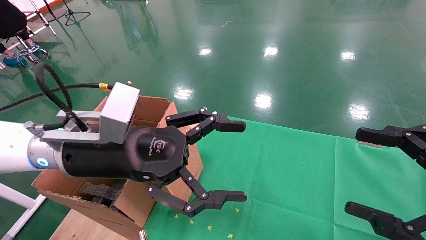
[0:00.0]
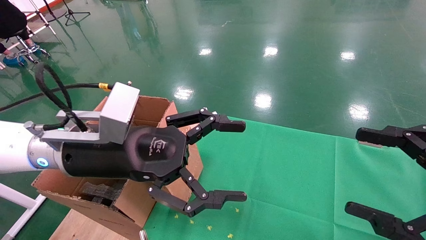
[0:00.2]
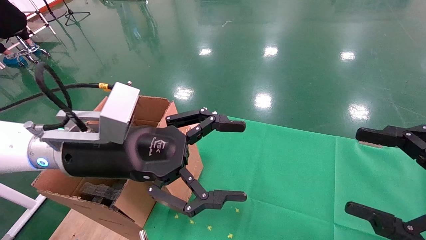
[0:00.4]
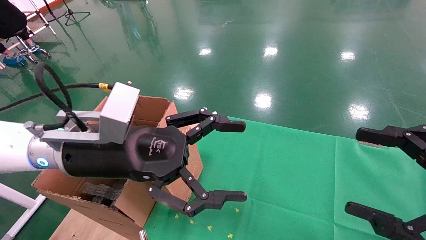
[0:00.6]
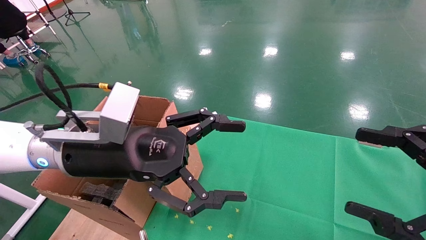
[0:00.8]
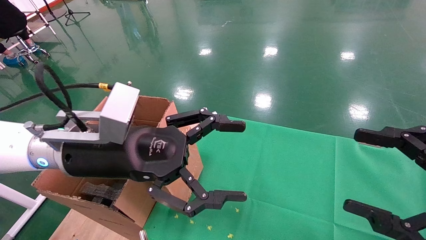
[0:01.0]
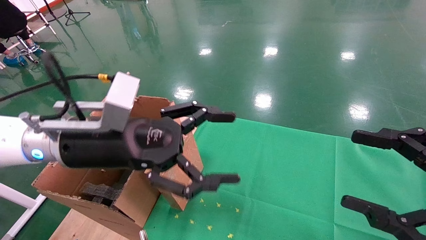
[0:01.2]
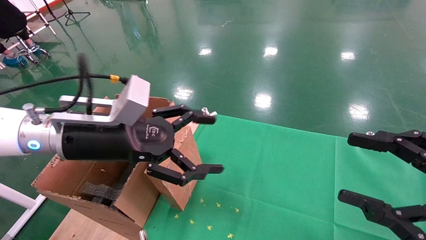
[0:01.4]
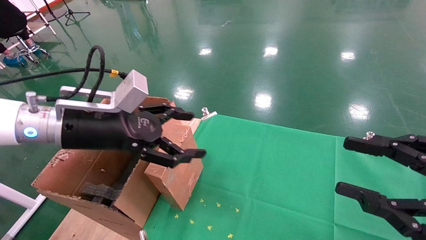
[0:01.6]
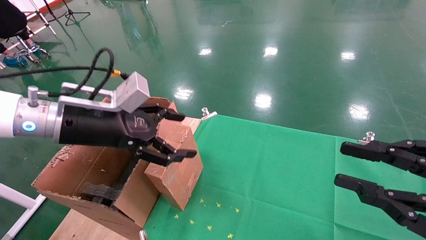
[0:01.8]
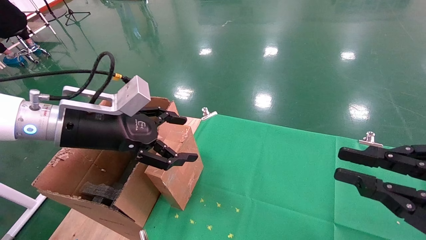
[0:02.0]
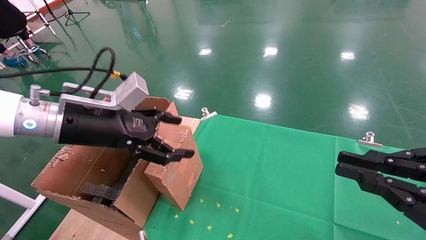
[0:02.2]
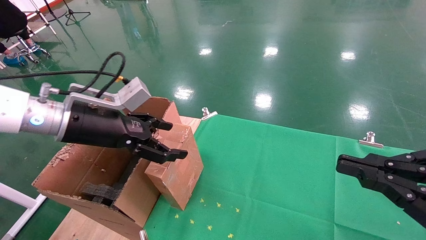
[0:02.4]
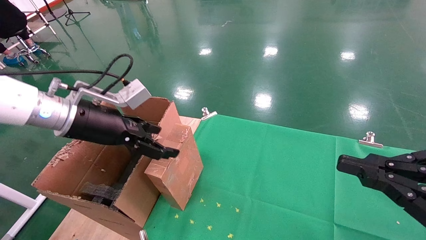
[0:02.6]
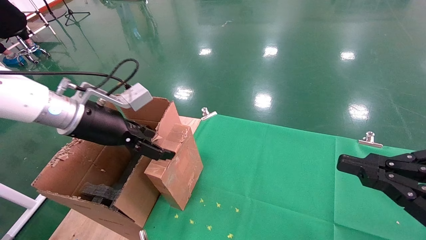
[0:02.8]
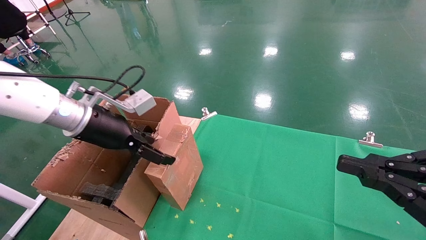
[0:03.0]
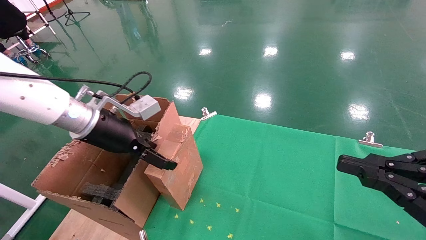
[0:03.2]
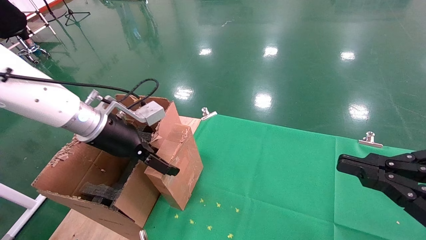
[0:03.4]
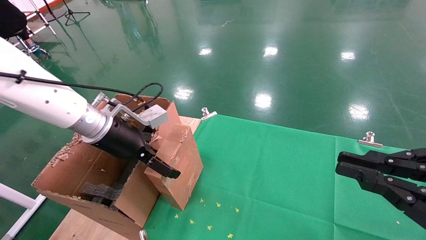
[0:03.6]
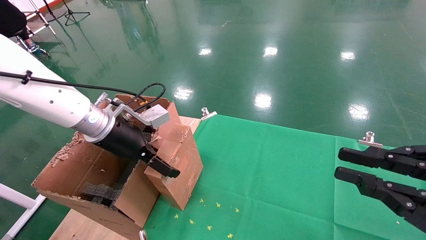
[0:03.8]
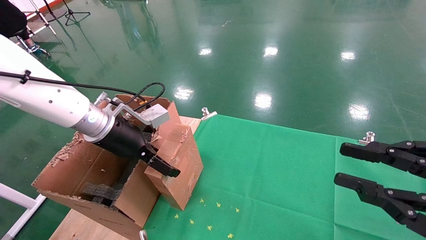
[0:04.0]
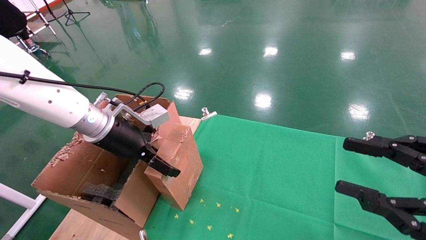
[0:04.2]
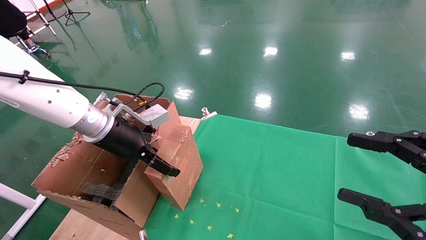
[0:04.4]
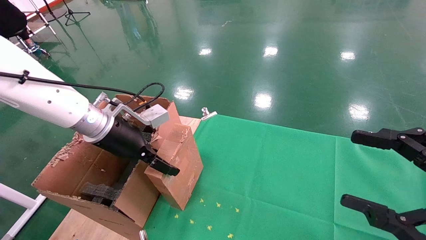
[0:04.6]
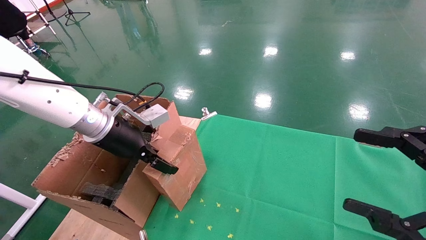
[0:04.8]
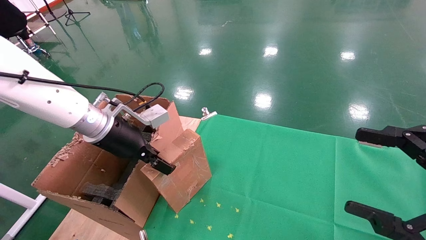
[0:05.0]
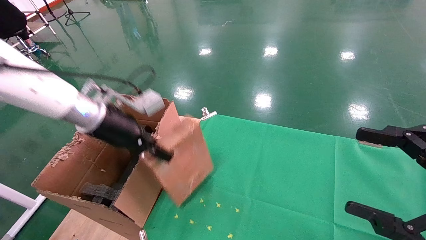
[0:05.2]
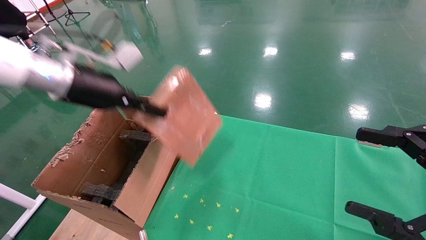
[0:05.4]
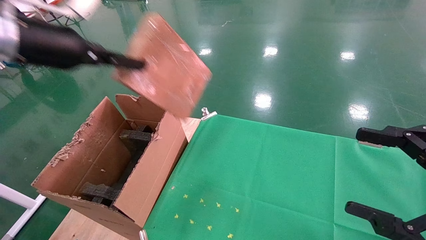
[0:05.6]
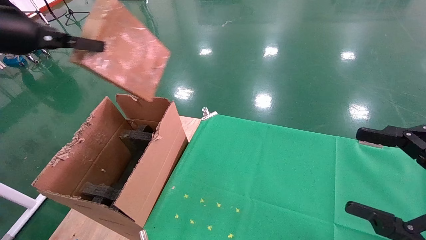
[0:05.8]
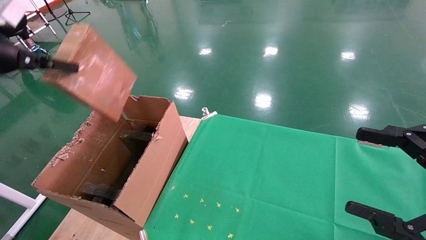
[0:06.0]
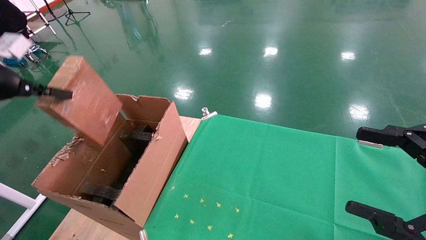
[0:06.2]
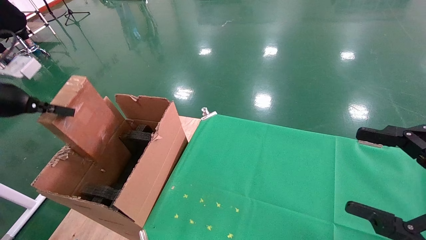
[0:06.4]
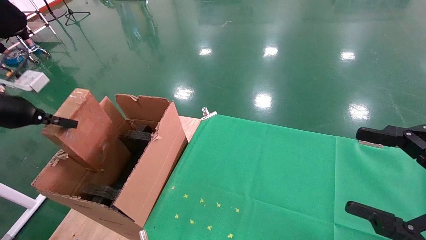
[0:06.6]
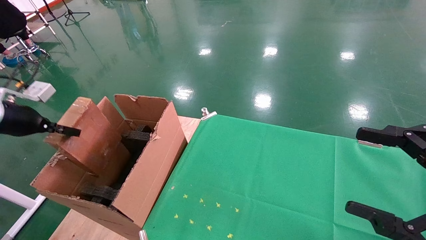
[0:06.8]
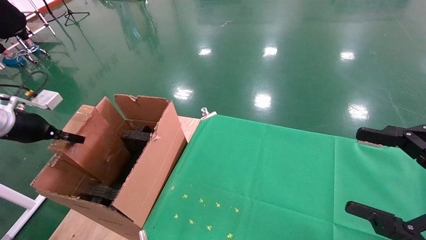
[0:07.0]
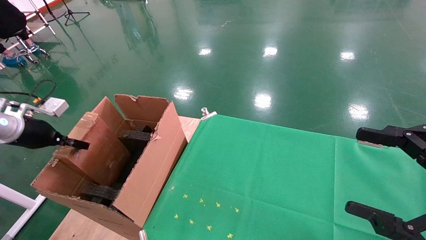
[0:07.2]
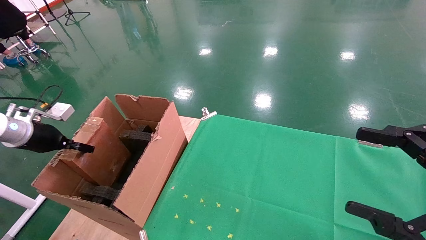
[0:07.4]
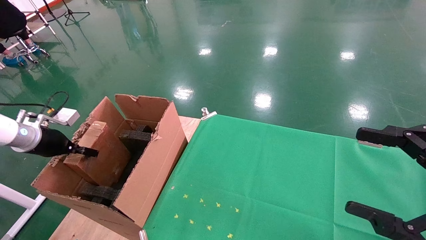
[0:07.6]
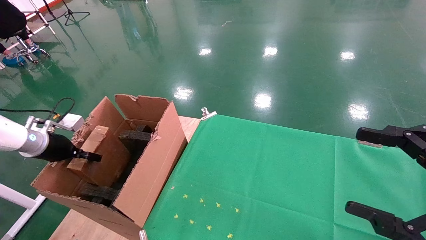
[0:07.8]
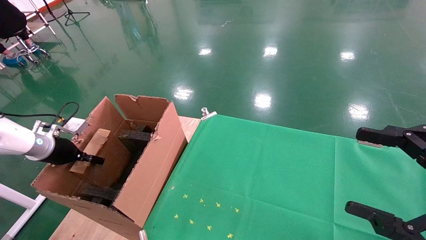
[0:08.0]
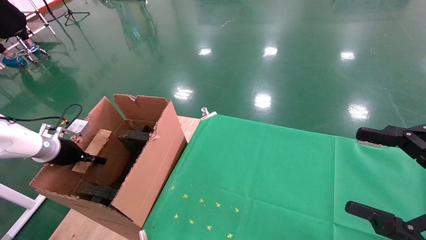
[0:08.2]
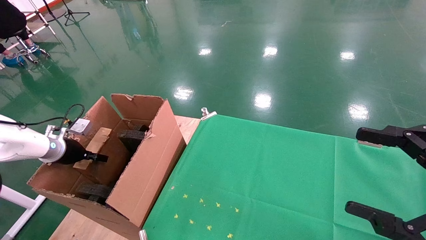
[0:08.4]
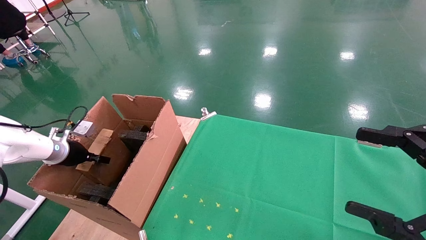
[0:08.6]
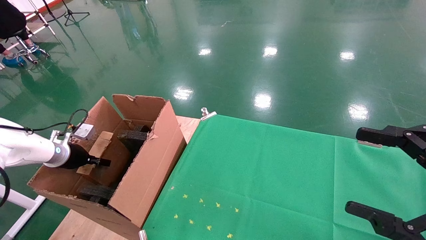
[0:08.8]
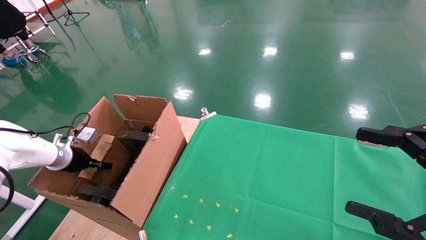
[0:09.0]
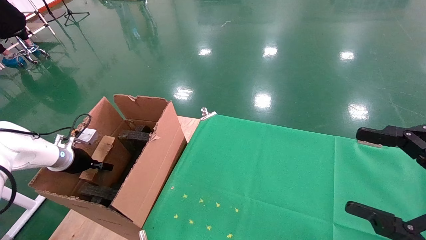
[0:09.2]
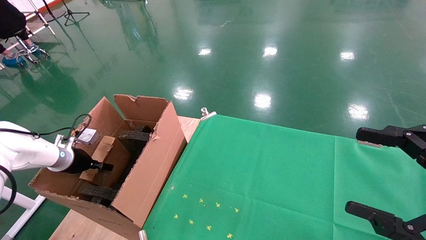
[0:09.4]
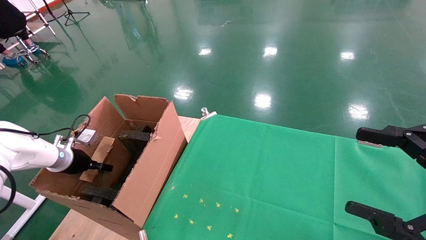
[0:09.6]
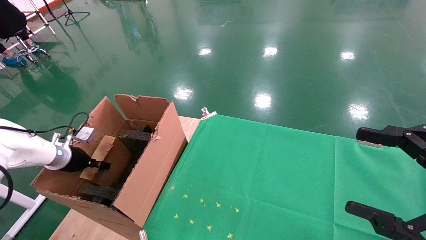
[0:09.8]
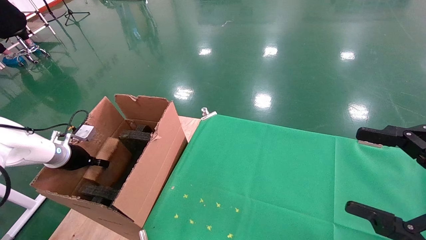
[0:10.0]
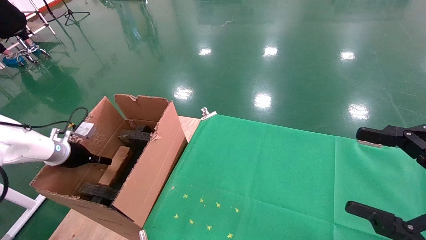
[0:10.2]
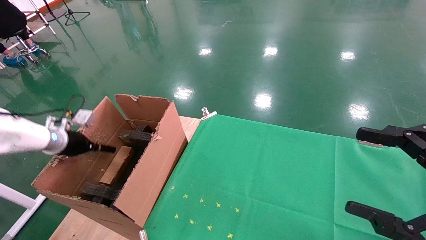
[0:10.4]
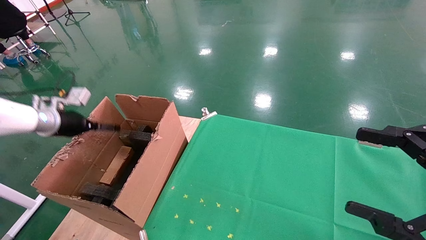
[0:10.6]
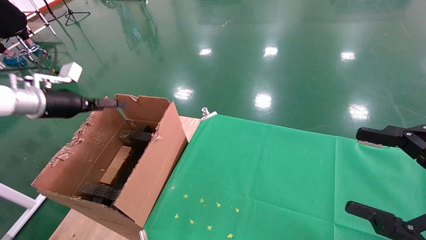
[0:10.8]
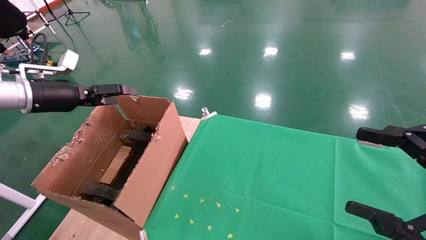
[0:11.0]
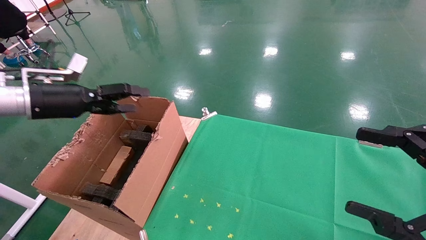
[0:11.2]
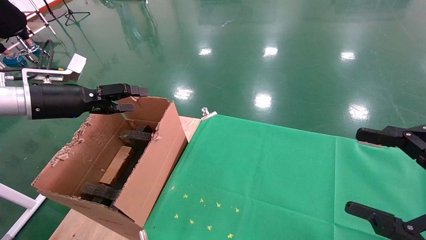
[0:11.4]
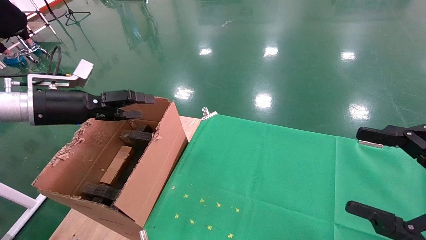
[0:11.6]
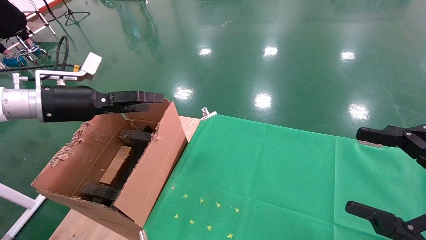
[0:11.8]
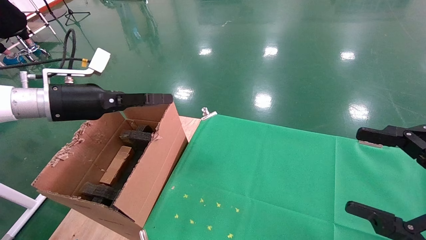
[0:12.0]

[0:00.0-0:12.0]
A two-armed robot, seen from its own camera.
Task of the whole recording: using a robotic arm to pick up a cardboard box and palace it the carton.
Step, 0:01.4 to 0:04.6: Pick up the mouse and the power cord paper box.
Step, 0:04.8 to 0:10.8: Place the mouse and the power cord paper box into the container.
0:00.0 to 0:01.6: The right gripper closes its fingers. Meanwhile the left gripper moves to the left, some 5 cm.
0:01.6 to 0:03.0: The right gripper closes, while the left gripper goes approximately 5 cm forward.
0:03.0 to 0:04.4: The right gripper opens.
0:04.4 to 0:06.0: The left gripper moves to the left, upward and backward, some 25 cm, and closes up. Meanwhile the right gripper opens up.
0:06.0 to 0:07.6: The left gripper is displaced downward and forward by some 20 cm.
0:07.6 to 0:09.0: The left gripper moves downward, some 10 cm.
0:09.0 to 0:10.4: The left gripper heads upward, covering about 5 cm, and opens.
0:10.4 to 0:12.0: The left gripper goes roughly 20 cm to the right, upward and backward.

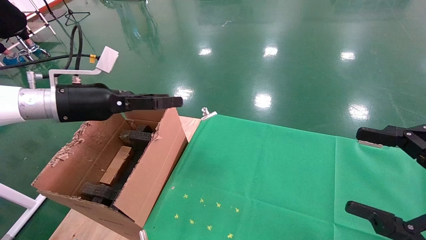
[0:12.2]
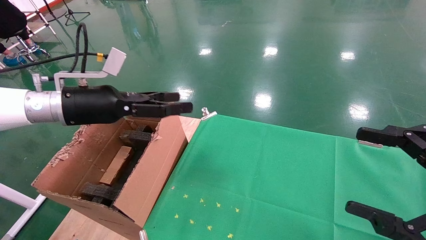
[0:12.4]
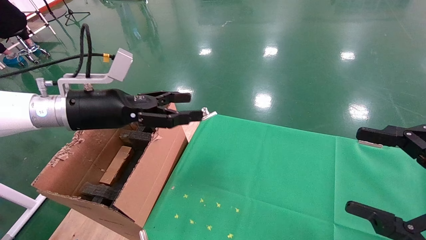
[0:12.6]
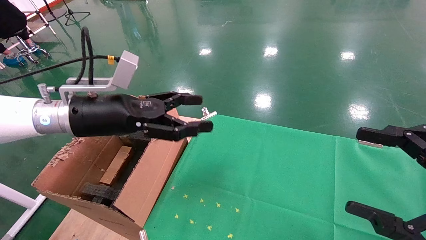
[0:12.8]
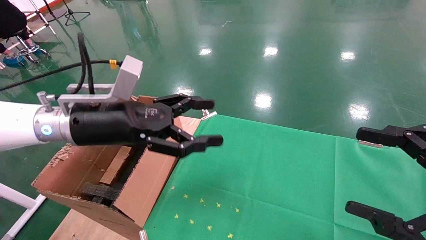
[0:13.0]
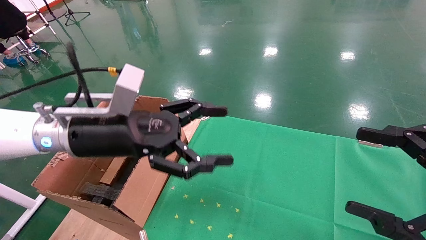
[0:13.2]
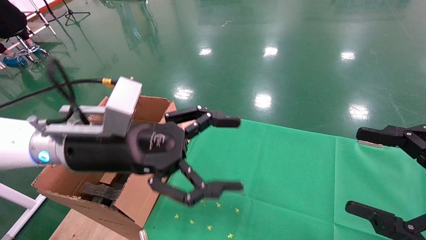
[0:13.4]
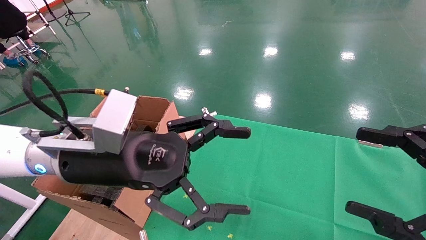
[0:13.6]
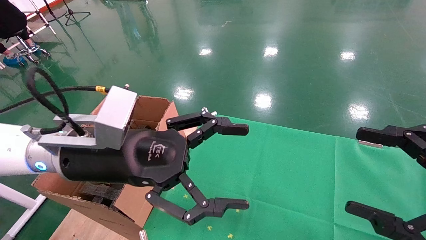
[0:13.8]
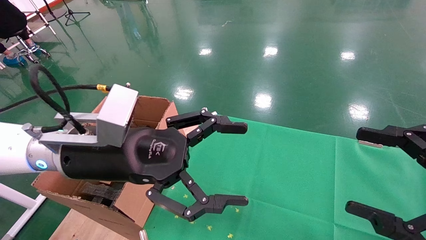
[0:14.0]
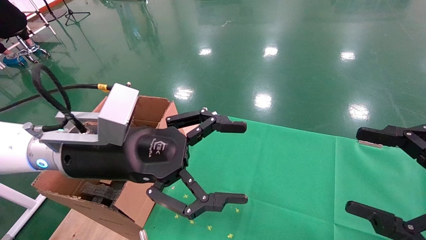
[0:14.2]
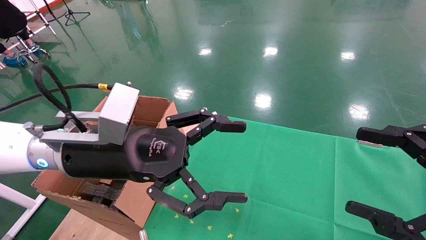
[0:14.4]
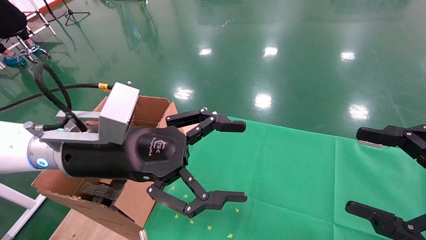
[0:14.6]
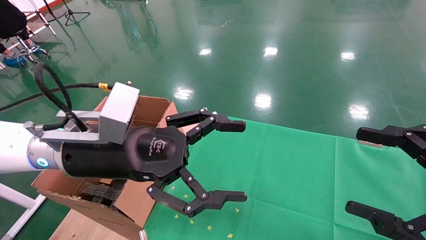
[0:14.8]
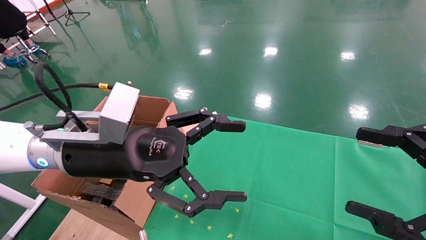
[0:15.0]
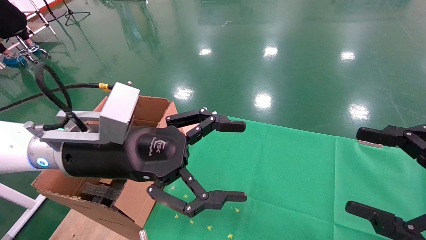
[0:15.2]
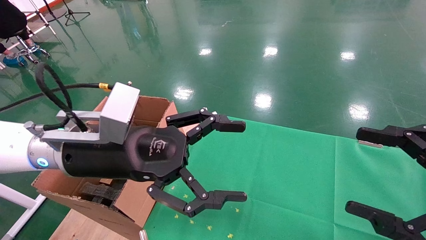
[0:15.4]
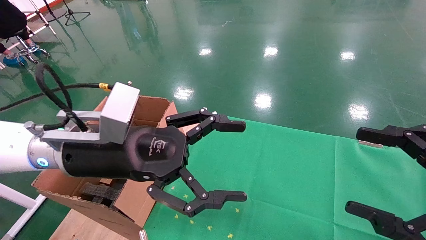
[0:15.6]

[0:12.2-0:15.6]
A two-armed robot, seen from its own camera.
Task of the whole recording: using a robotic arm to pick up a cardboard box and palace it the carton.
0:12.2 to 0:13.8: The left gripper is displaced to the right and backward by roughly 20 cm.
0:13.8 to 0:15.6: Both grippers stay put.
